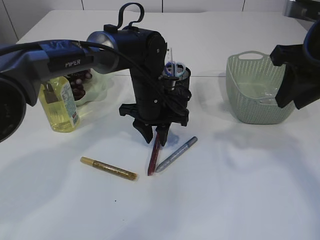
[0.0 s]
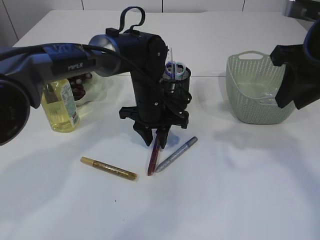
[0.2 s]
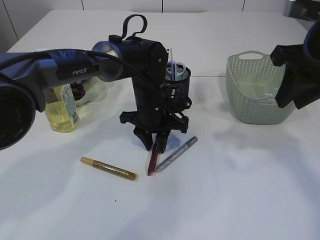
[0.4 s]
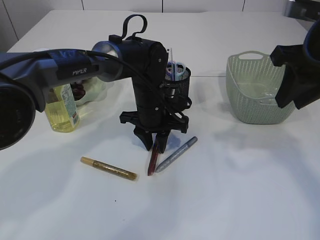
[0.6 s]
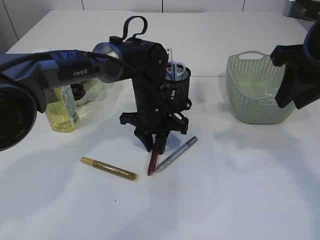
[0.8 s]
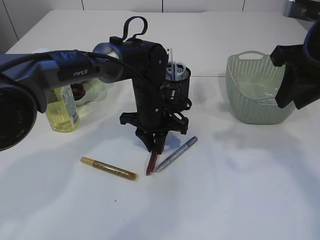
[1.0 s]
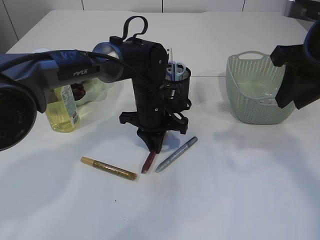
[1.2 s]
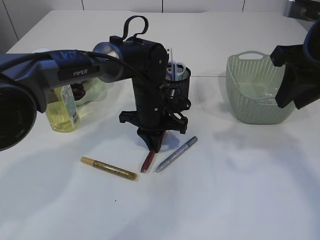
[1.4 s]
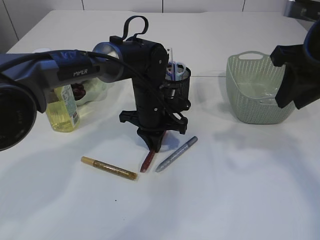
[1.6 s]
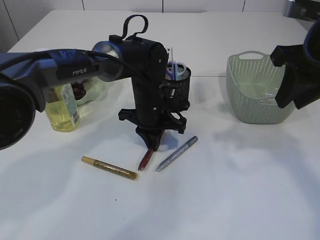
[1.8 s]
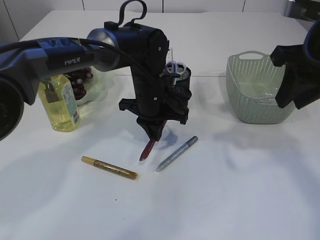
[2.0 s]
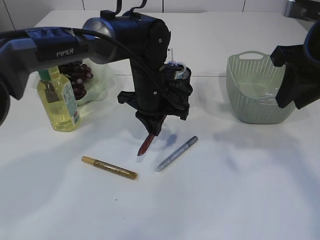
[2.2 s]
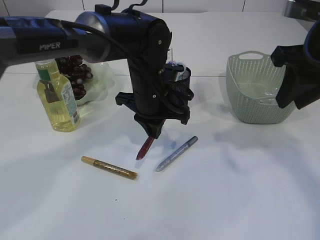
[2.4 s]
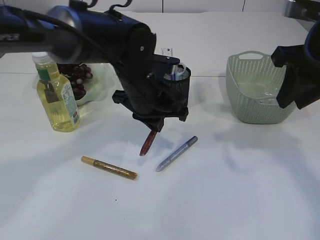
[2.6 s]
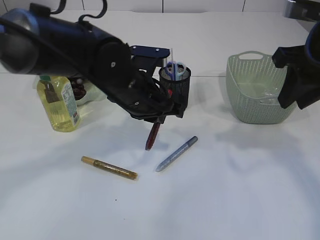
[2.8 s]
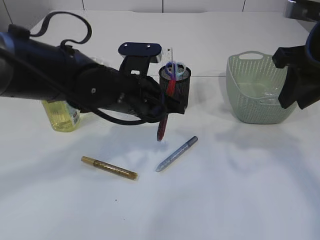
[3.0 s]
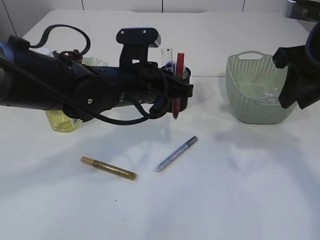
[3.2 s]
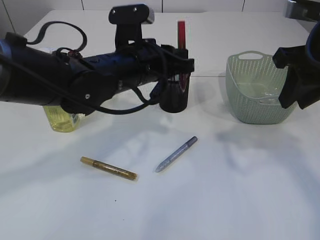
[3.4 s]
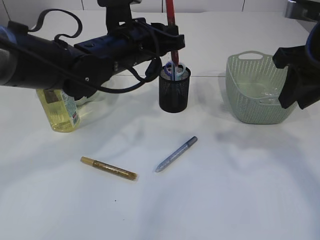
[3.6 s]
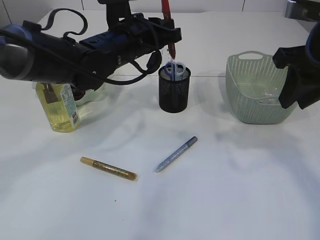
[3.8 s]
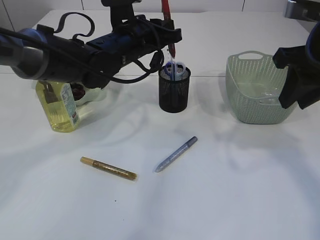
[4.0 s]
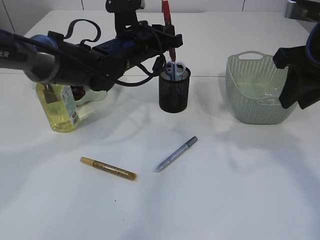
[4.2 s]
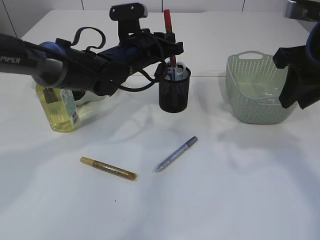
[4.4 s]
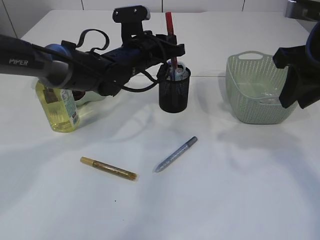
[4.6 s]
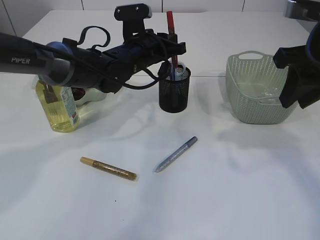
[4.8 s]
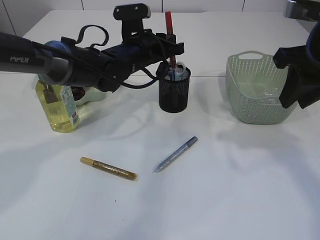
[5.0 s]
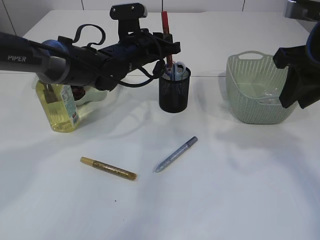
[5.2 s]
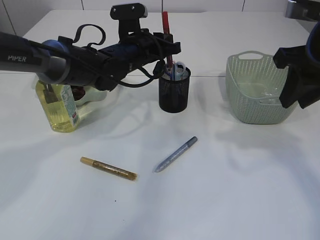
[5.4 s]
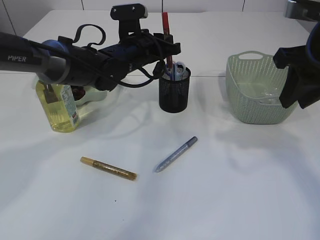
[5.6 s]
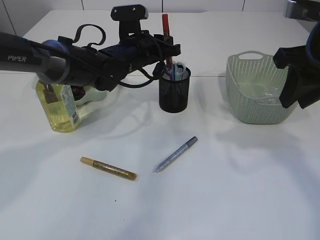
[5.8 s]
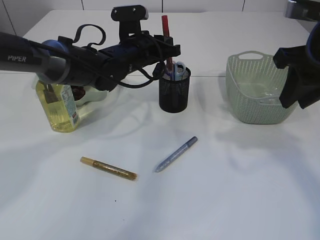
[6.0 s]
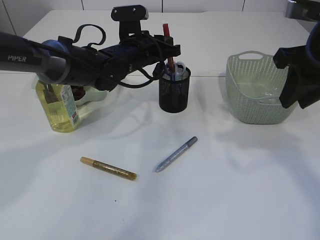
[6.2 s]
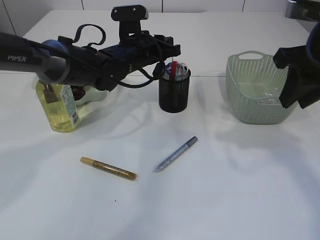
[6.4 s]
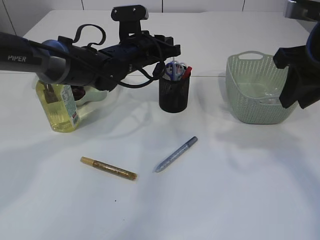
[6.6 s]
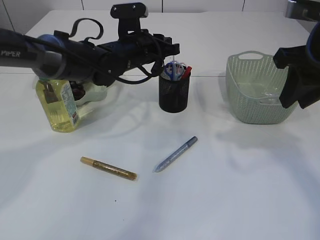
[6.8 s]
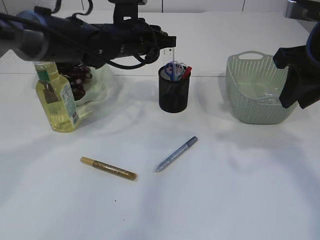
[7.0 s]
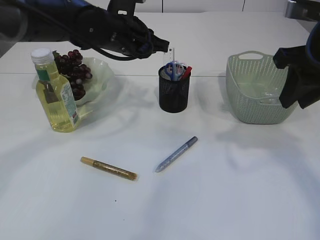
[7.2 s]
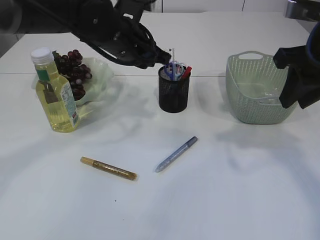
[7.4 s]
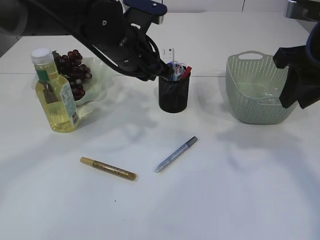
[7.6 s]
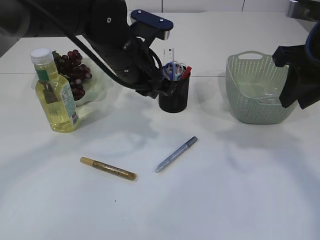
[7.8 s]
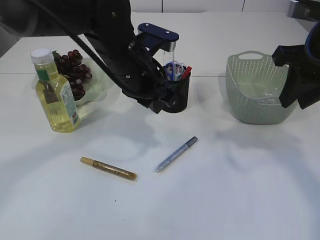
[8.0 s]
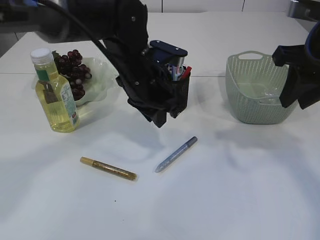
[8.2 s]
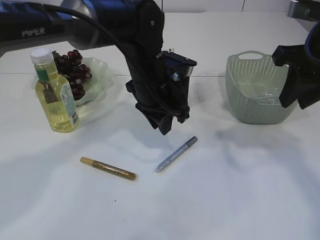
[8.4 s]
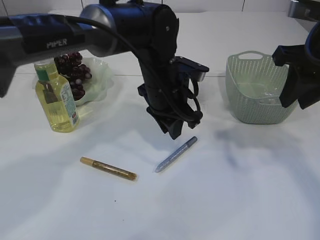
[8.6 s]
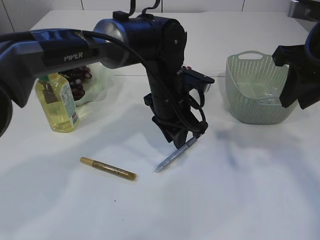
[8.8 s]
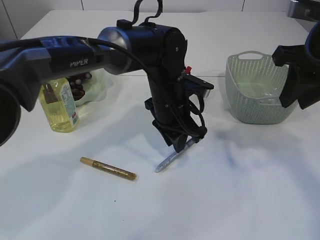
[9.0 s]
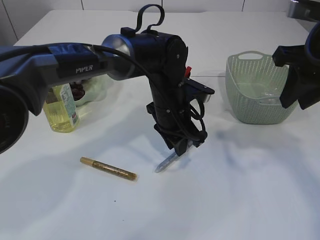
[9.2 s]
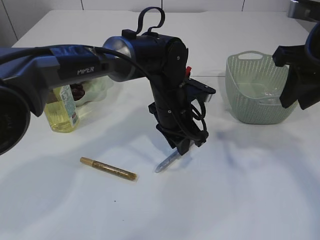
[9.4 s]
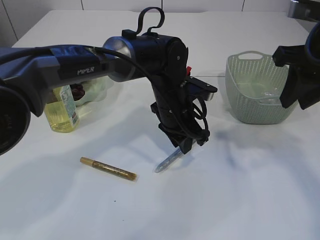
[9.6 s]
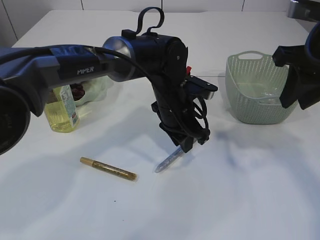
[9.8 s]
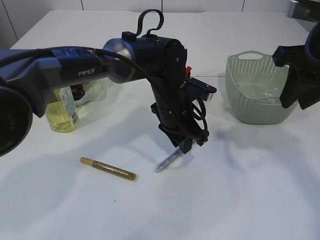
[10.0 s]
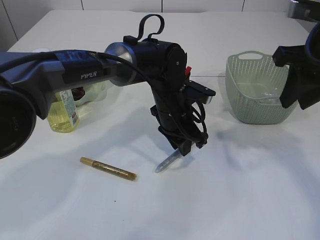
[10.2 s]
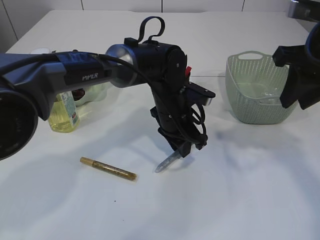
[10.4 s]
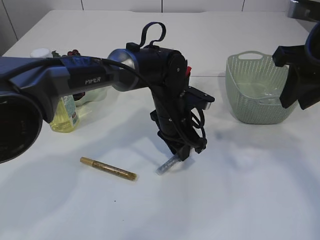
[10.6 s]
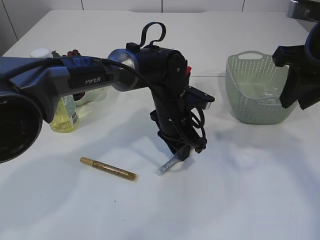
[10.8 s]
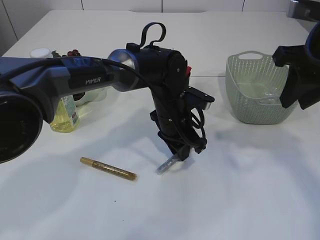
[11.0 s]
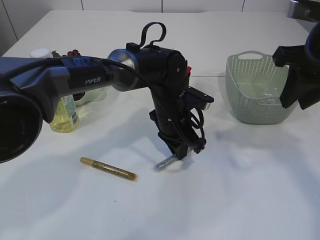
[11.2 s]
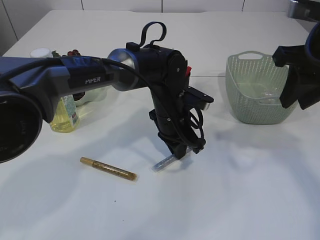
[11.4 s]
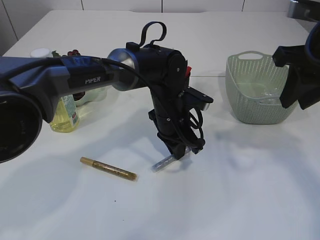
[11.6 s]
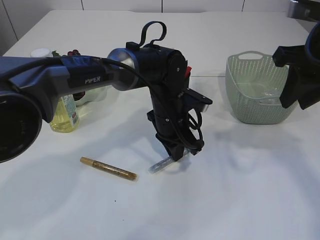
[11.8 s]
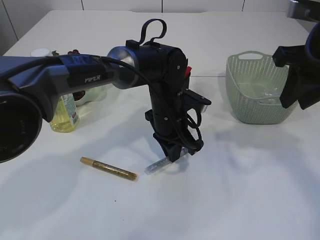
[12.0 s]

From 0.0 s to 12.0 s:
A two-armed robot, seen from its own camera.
Step, from 0.0 s to 3.0 s: pick up the red glue.
Step, from 3.2 s to 7.8 s: place the red glue into the pen holder.
From 0.0 s to 1.6 s: The left gripper closes.
From 1.6 s to 3.0 s: The left gripper heads backward and upward, covering some 10 cm.
From 3.0 s to 4.4 s: The left gripper shifts about 10 cm forward.
From 4.4 s to 6.0 s: There are only small adjustments of the grippers.
From 6.0 s to 7.6 s: The left gripper shifts roughly 10 cm backward and upward.
From 7.6 s to 9.0 s: The left gripper goes roughly 10 cm downward and to the right.
From 9.0 s to 12.0 s: The grippers move only a little.

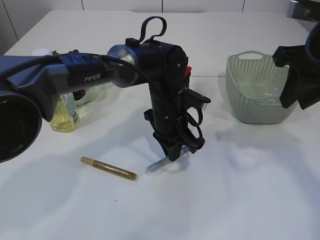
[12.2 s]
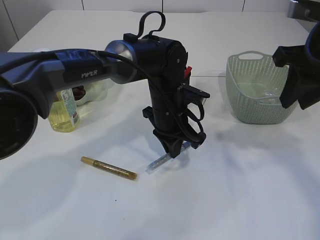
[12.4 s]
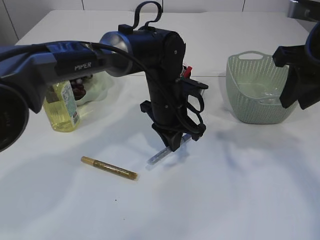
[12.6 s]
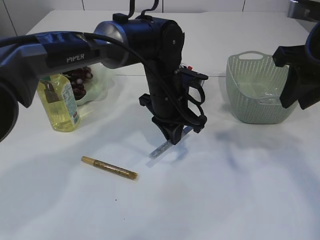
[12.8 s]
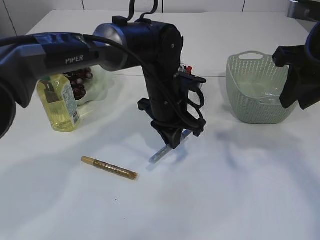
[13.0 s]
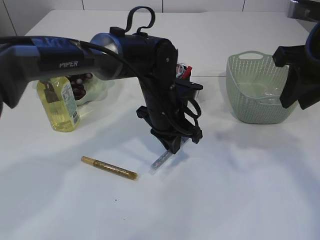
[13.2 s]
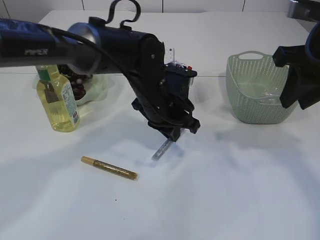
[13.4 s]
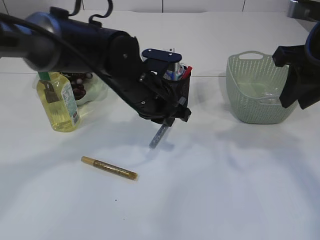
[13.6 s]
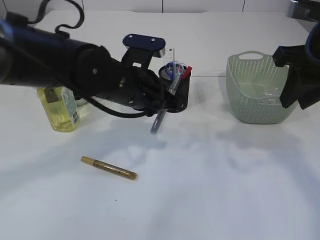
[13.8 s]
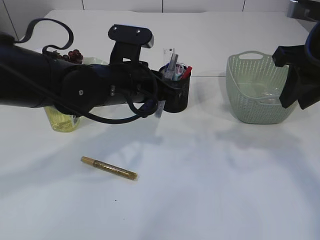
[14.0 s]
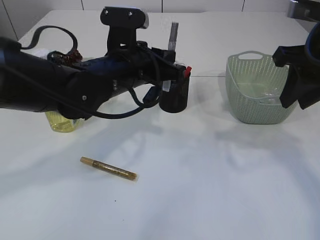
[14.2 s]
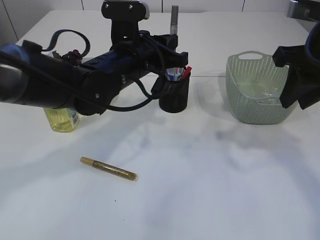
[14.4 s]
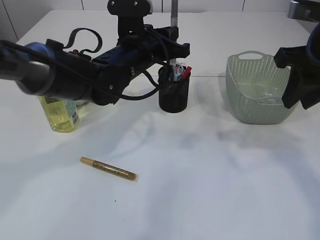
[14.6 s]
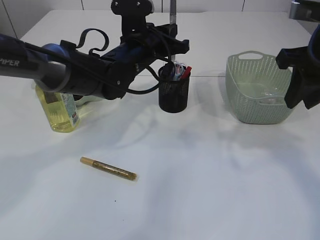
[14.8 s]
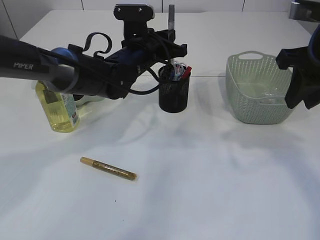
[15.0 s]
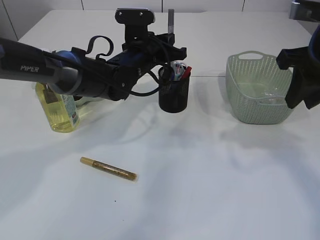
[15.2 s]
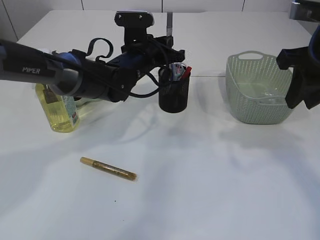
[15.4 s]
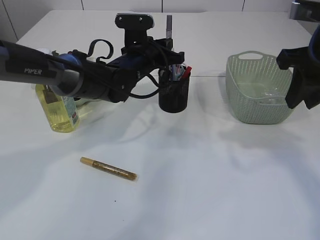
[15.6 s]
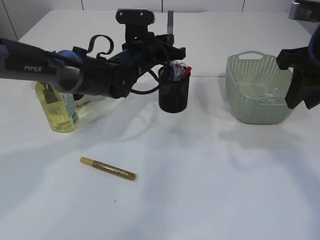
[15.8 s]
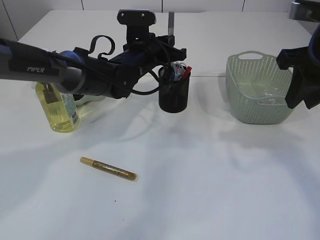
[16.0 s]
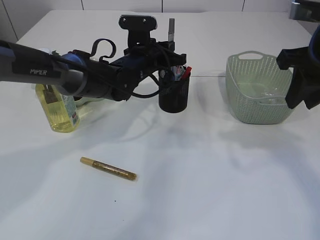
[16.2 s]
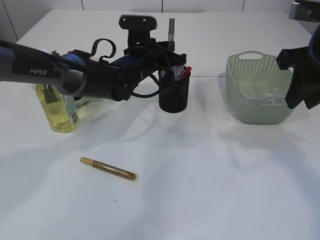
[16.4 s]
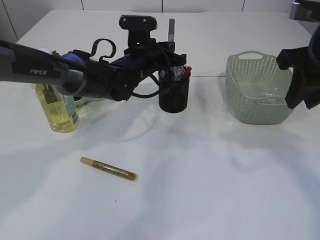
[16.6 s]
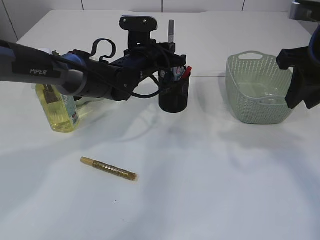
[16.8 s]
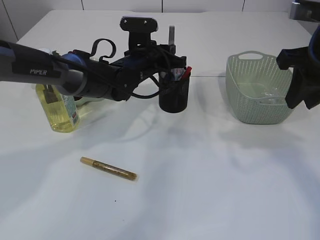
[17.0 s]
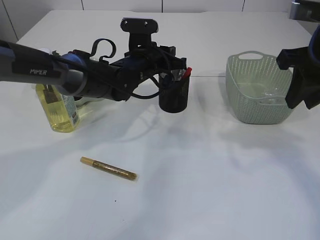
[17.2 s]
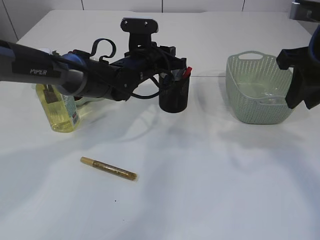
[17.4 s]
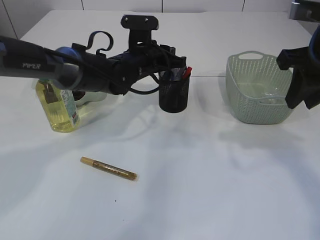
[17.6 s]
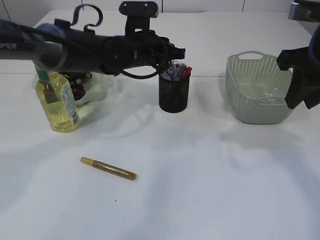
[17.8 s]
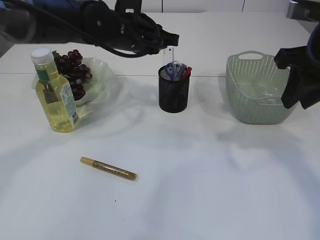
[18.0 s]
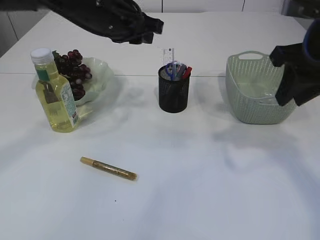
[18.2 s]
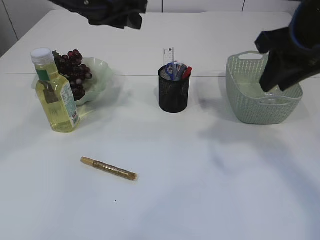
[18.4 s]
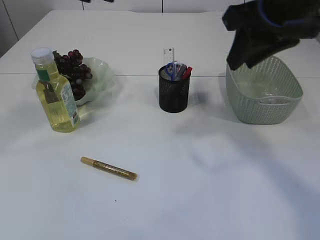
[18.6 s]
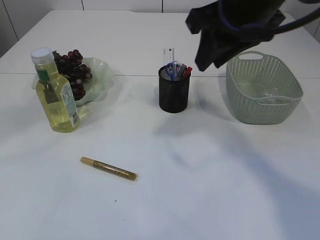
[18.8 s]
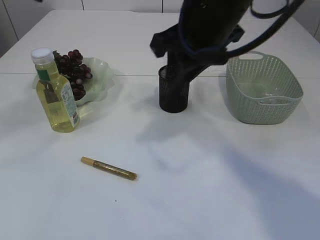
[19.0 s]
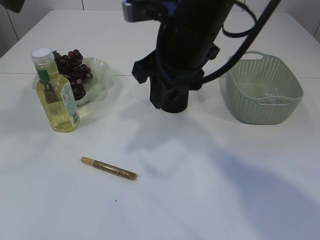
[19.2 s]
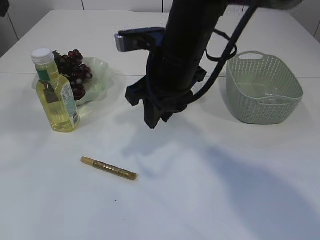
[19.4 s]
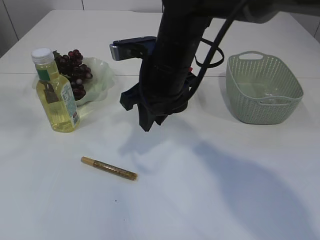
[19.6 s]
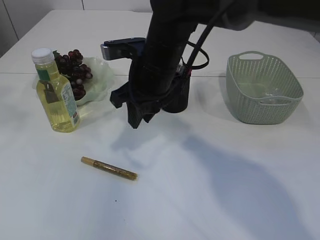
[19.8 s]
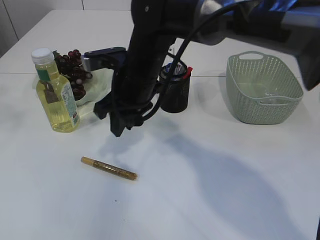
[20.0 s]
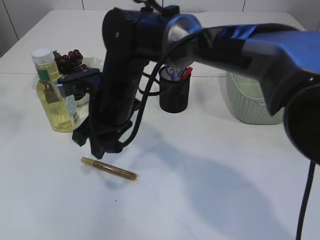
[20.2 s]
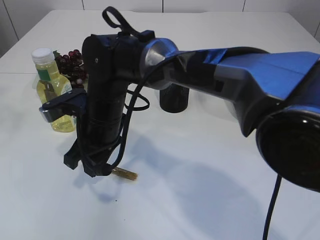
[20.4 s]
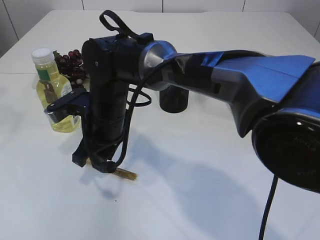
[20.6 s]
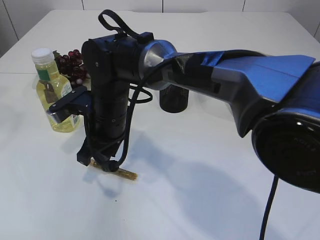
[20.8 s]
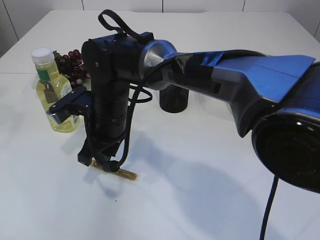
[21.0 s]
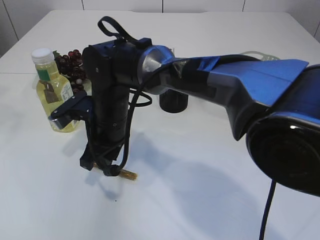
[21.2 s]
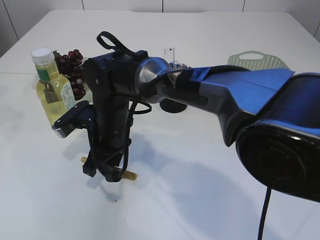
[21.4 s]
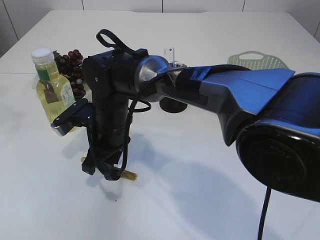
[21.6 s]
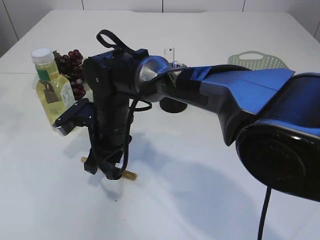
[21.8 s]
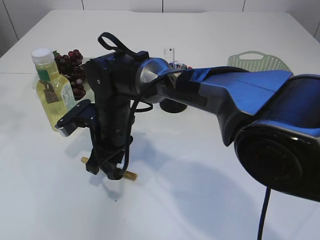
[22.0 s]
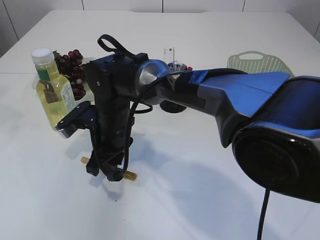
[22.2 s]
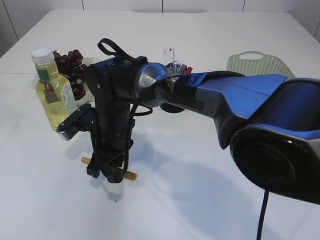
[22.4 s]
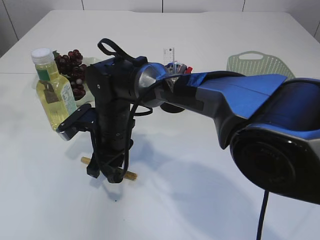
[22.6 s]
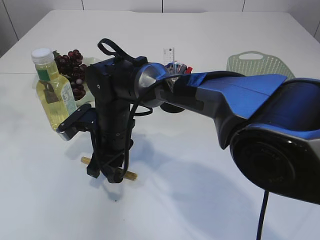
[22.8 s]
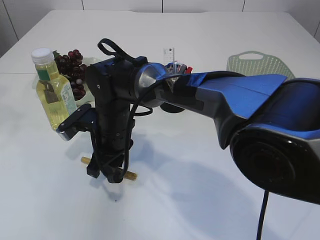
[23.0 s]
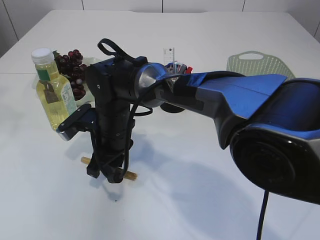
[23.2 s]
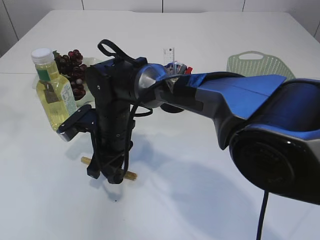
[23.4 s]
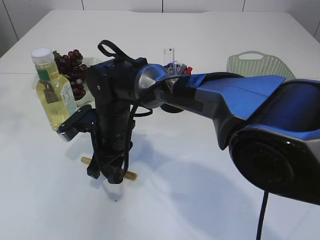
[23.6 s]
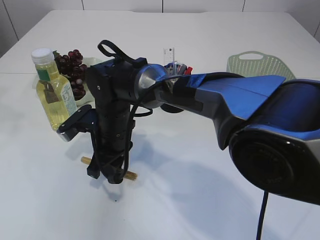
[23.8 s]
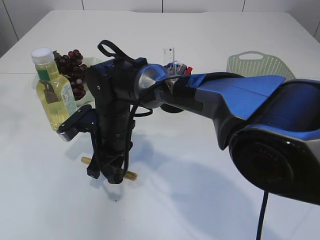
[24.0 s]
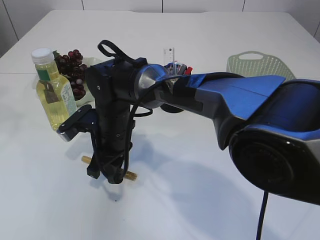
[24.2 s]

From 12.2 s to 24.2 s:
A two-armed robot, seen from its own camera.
Step, from 13.6 s to 18.2 s: place the silver glue into the pen holder.
From 12.2 s to 13.8 s: The left gripper is displaced upward and to the left by approximately 10 cm.
From 13.8 s to 15.2 s: The left gripper is displaced forward by some 10 cm.
From 15.2 s to 16.6 s: The grippers move only a little.
From 16.6 s to 18.2 s: The left gripper moves upward, roughly 10 cm.
From 18.2 s to 19.8 s: The right gripper heads to the left, covering approximately 20 cm, while the left gripper is displaced to the left, upward and backward by approximately 30 cm.
From 19.8 s to 21.2 s: The right gripper is displaced to the left and downward by about 10 cm.
From 21.2 s to 22.6 s: The grippers move only a little.
From 22.6 s to 24.2 s: Neither gripper changes place.
